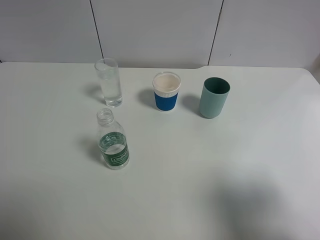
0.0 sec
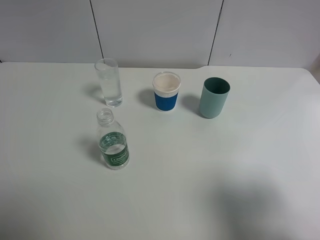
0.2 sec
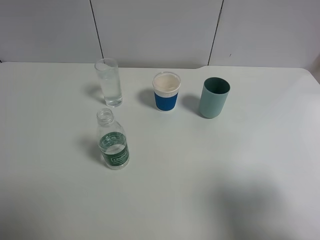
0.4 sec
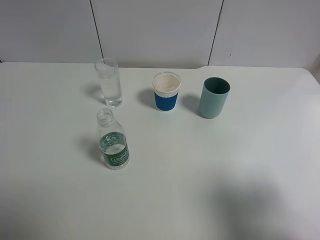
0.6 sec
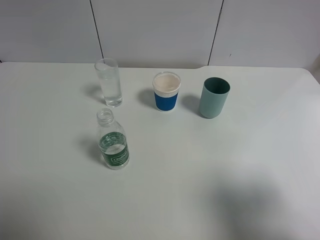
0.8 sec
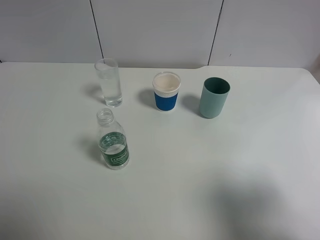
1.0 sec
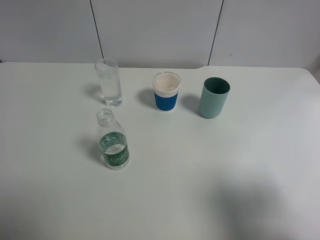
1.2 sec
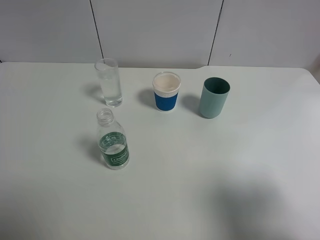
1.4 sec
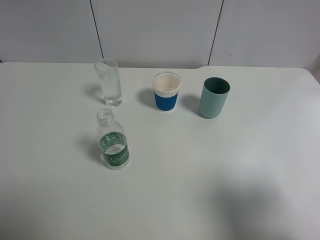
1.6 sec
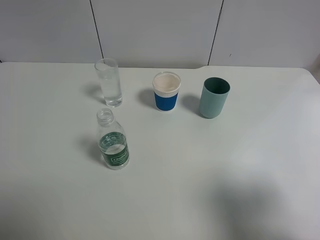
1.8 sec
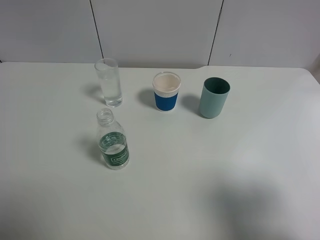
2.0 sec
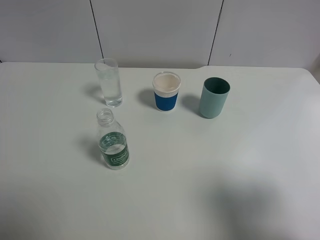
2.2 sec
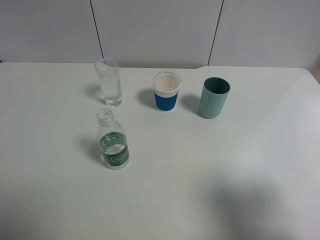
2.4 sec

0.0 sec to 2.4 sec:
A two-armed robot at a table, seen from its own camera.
Task of the whole recording: use a gripper to hold the bottle of the drink and pour it into a random cup.
0.0 sec to 2.4 sec: The two grippers keep their place.

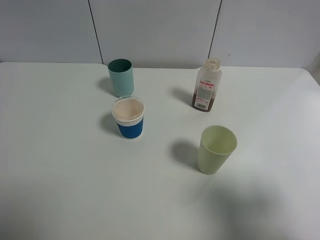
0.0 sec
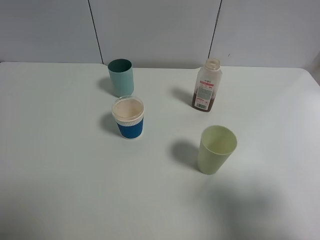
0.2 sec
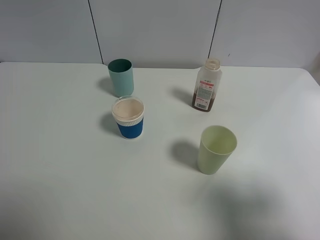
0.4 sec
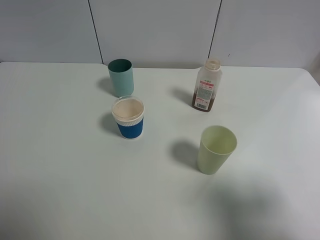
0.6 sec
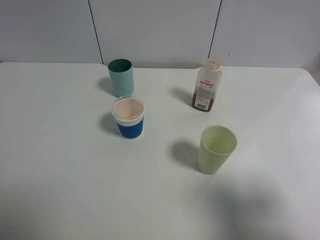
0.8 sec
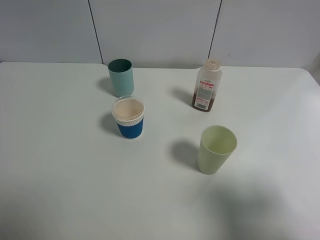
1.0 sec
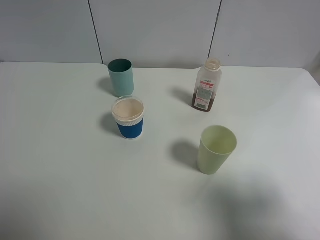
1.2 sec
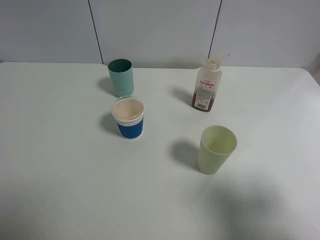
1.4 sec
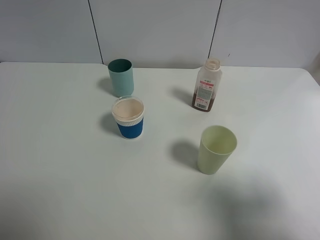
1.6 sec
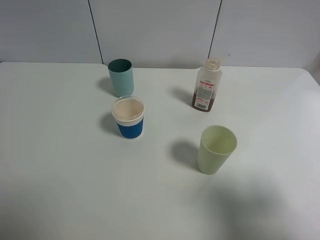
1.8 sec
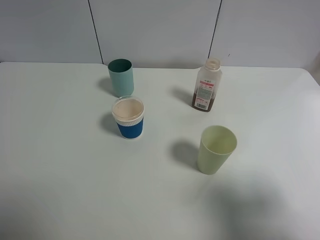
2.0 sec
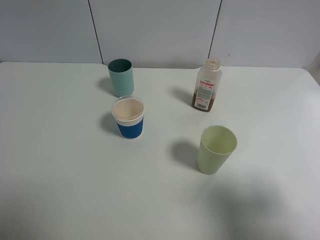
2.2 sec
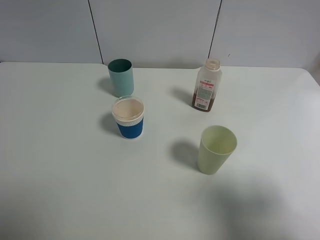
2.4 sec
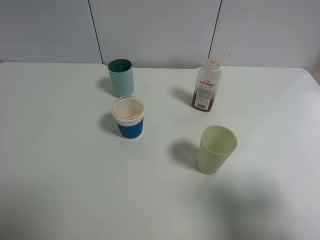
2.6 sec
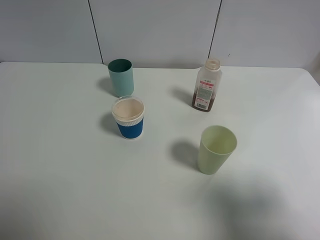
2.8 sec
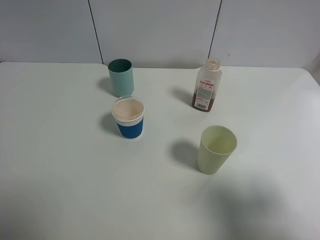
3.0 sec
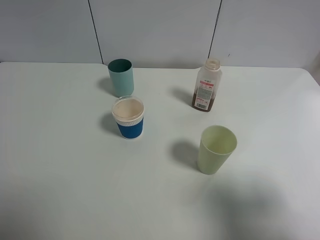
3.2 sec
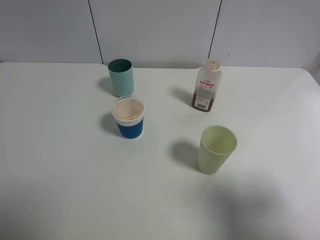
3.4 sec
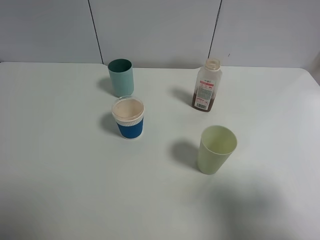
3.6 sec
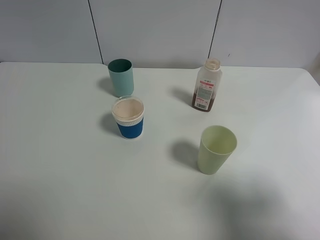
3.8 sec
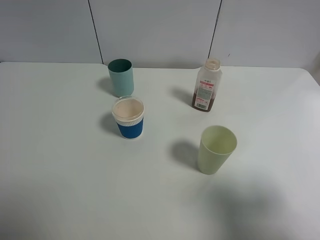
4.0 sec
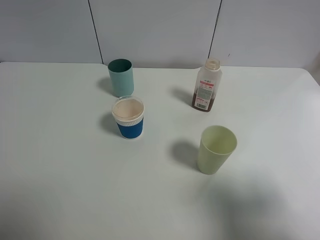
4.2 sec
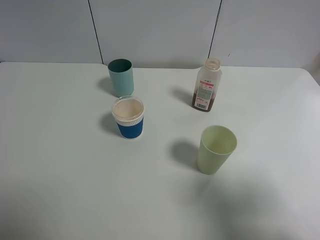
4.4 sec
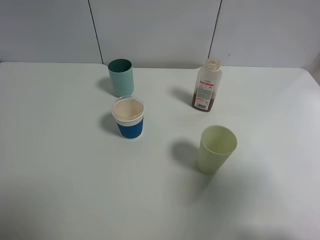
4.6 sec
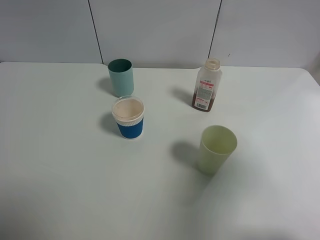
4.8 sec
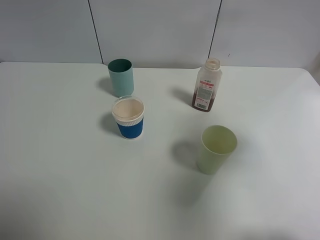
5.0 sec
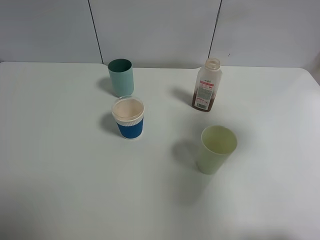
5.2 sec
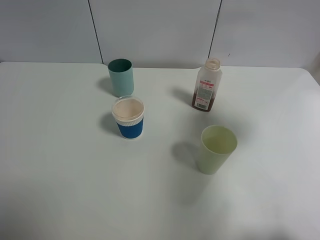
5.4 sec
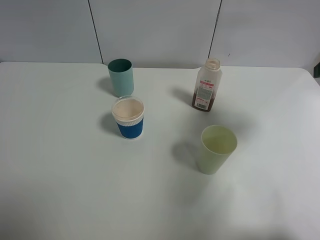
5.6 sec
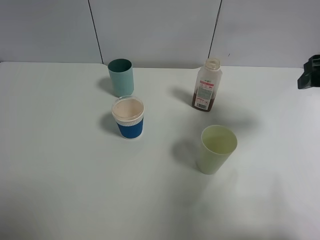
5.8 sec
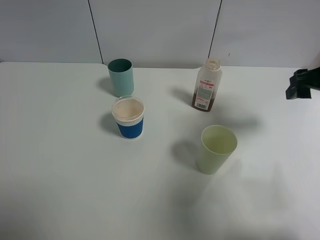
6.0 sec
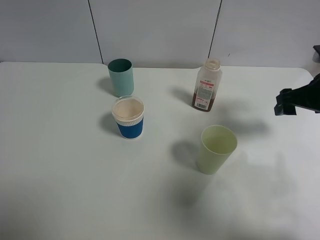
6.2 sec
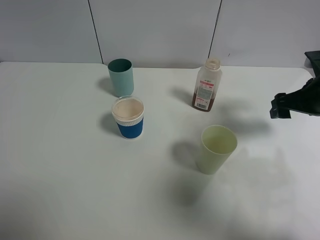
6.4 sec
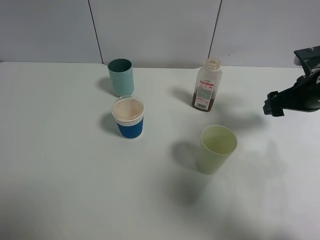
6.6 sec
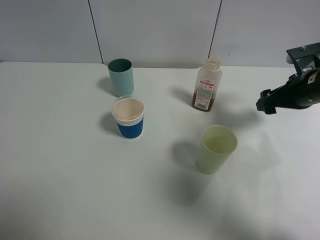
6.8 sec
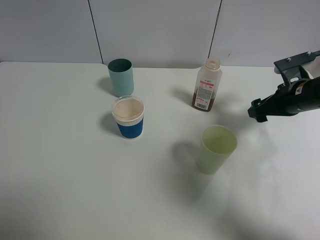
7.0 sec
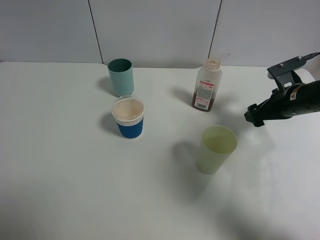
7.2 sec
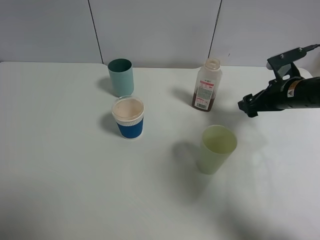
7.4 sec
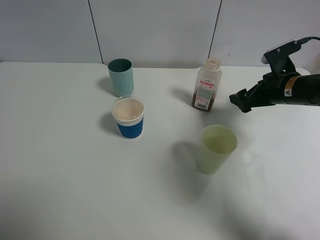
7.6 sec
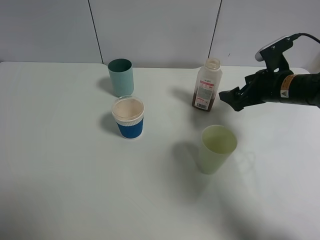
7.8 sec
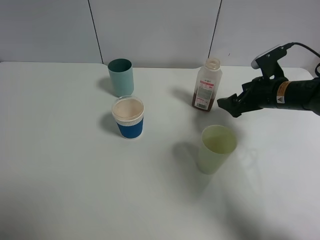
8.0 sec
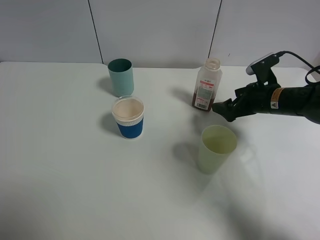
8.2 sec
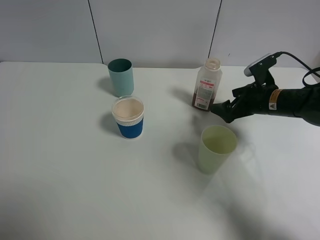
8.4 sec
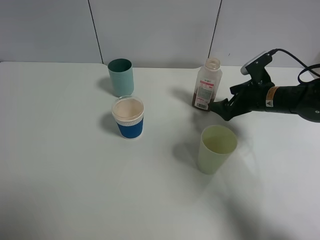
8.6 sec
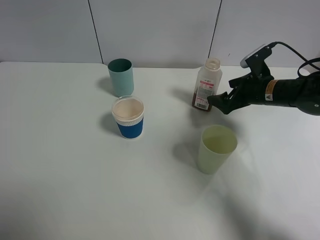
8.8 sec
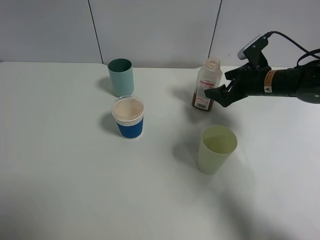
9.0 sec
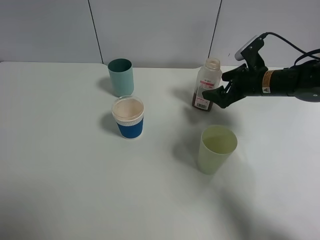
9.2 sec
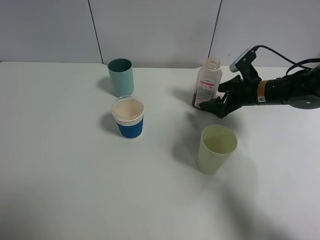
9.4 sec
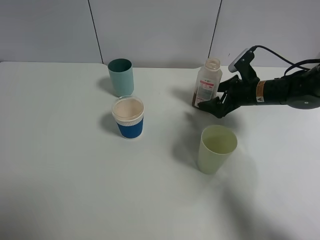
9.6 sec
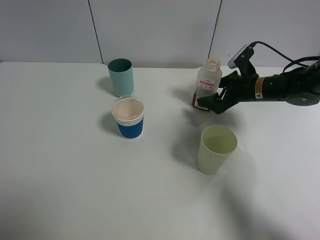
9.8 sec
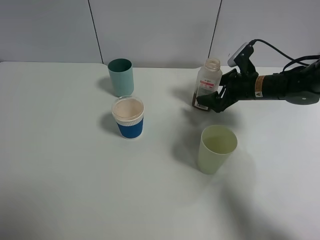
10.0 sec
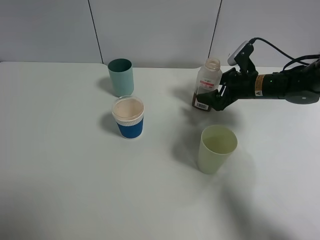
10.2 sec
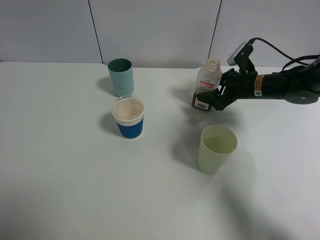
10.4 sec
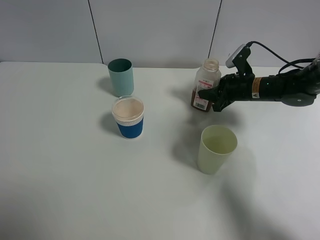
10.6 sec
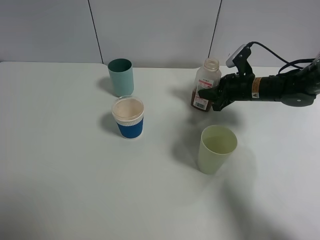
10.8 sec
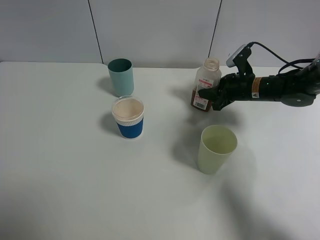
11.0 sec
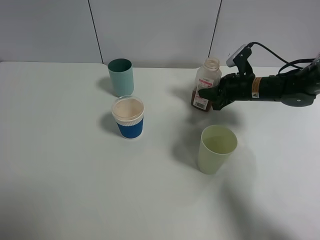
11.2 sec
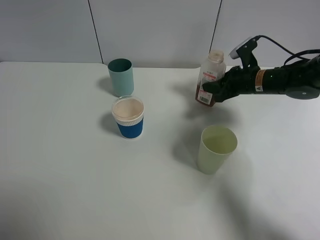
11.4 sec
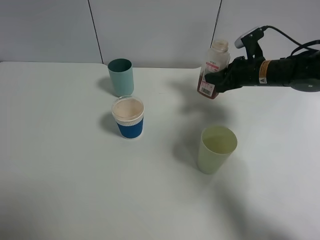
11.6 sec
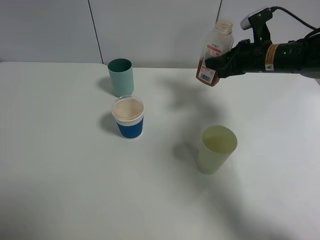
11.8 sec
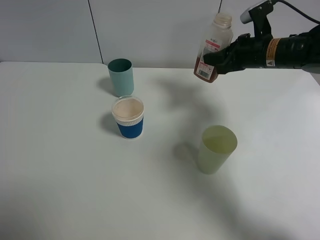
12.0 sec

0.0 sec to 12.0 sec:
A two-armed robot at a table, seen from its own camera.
Task of the whole recording: use a gripper to hold the bottle of the drink and pour it into a random cup.
Step, 0.0 sec to 10.8 sec: Grasp the cranberry juice bottle with the right gripper.
0.0 sec to 3.0 sec: Both grippers stay put.
4.4 sec to 6.0 sec: The right gripper heads forward, covering roughly 25 cm.
6.0 sec to 7.6 sec: The right gripper moves downward and forward, some 10 cm.
7.6 sec to 9.0 sec: The right gripper changes place by about 5 cm.
9.0 sec to 10.4 sec: The grippers stay close to where they were, moving slightly.
10.4 sec to 12.0 sec: The right gripper is displaced upward by some 10 cm, and closes its fingers.

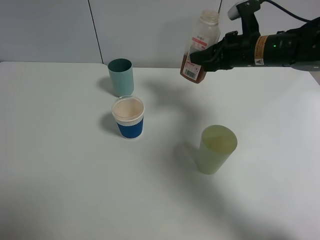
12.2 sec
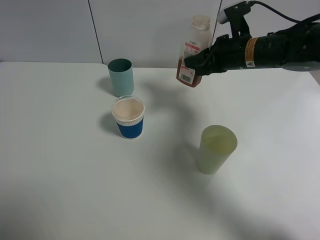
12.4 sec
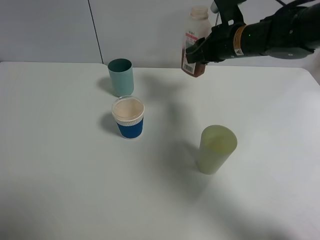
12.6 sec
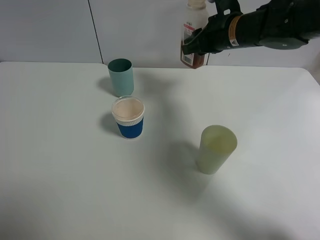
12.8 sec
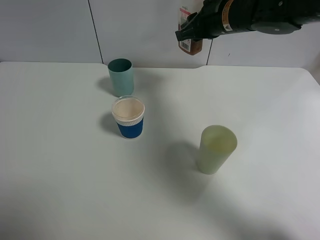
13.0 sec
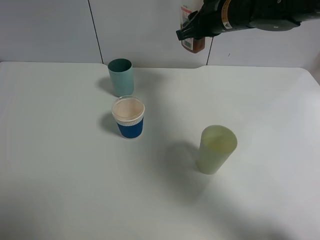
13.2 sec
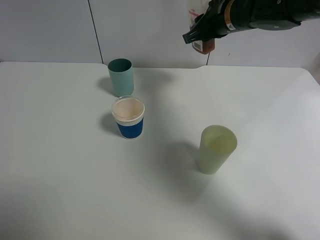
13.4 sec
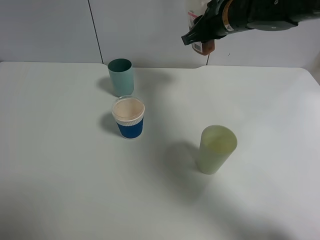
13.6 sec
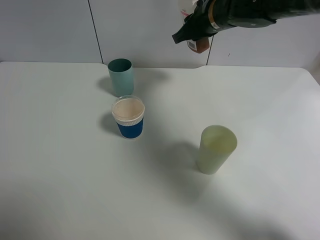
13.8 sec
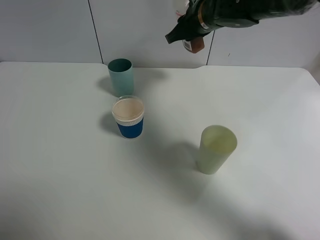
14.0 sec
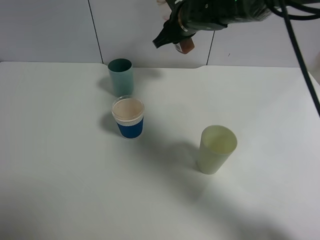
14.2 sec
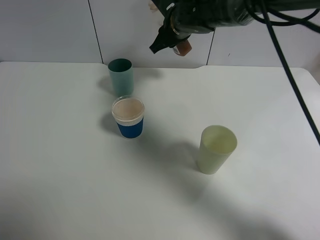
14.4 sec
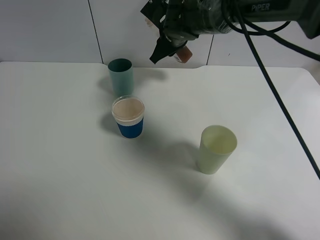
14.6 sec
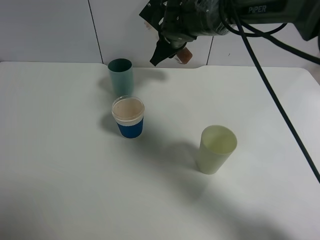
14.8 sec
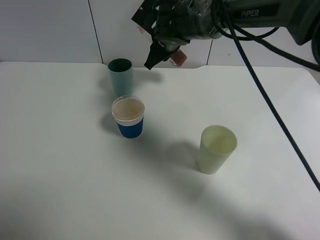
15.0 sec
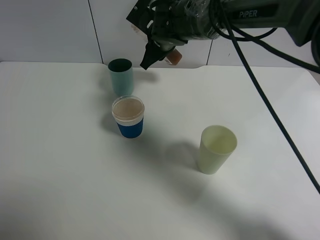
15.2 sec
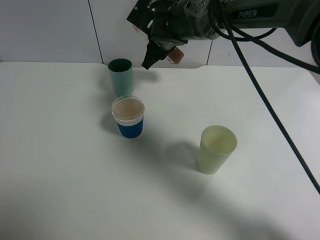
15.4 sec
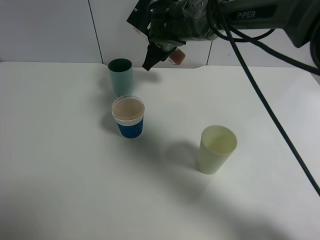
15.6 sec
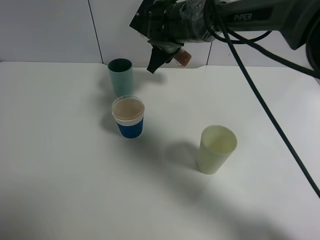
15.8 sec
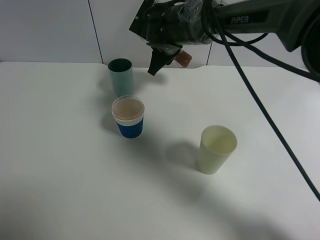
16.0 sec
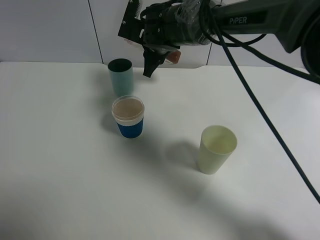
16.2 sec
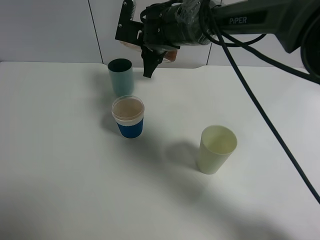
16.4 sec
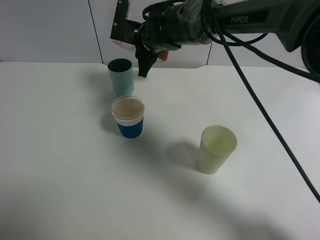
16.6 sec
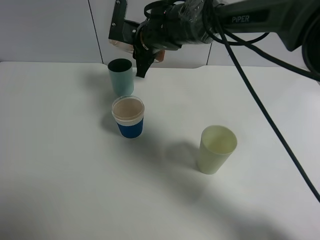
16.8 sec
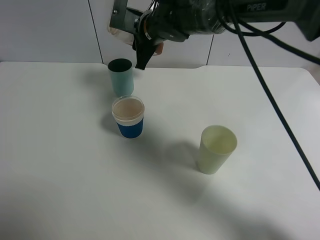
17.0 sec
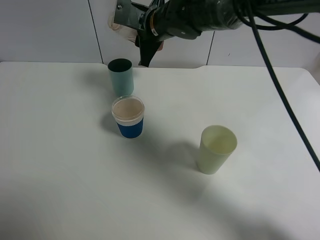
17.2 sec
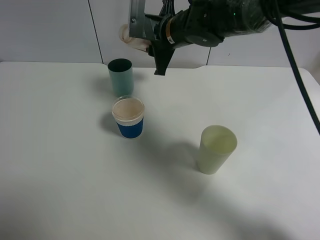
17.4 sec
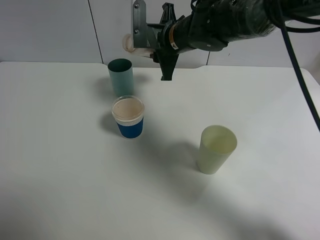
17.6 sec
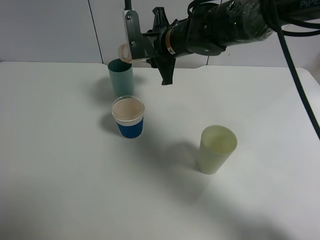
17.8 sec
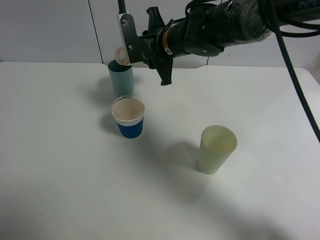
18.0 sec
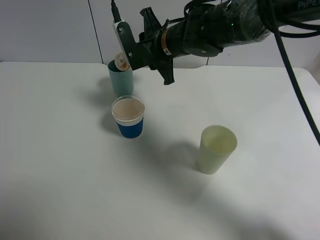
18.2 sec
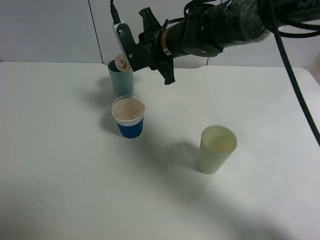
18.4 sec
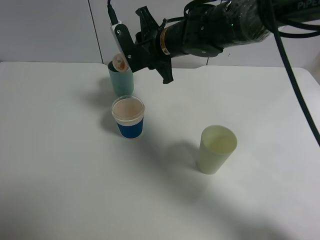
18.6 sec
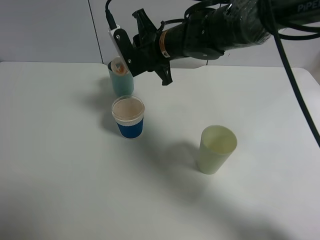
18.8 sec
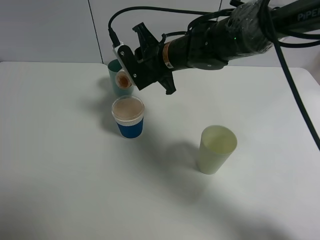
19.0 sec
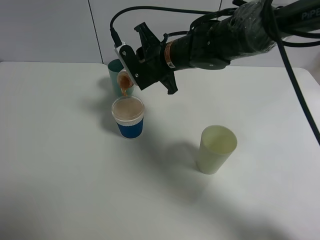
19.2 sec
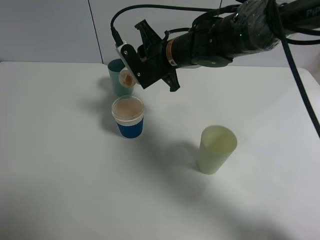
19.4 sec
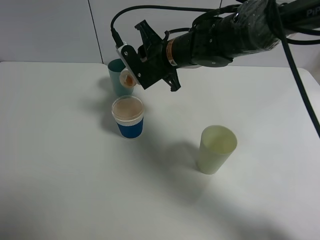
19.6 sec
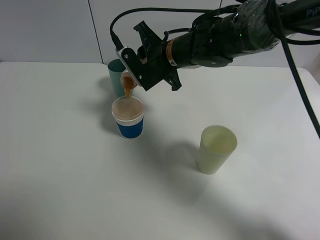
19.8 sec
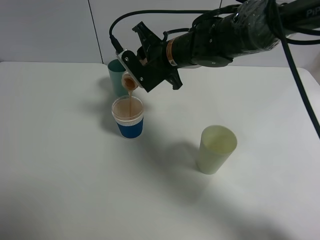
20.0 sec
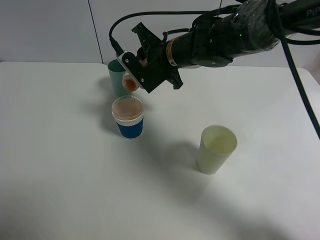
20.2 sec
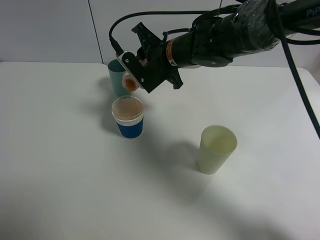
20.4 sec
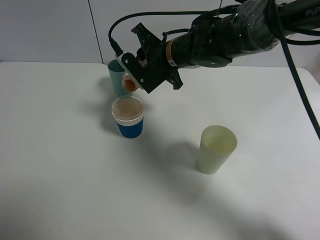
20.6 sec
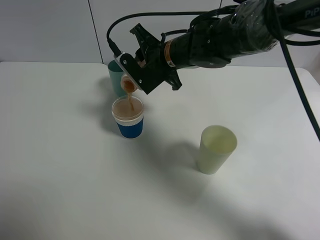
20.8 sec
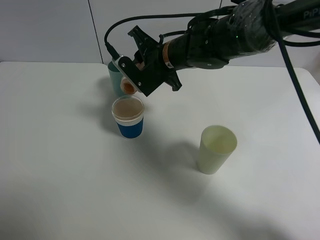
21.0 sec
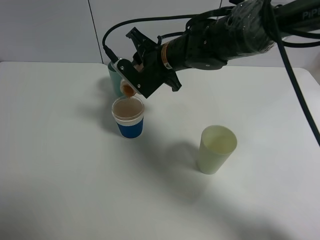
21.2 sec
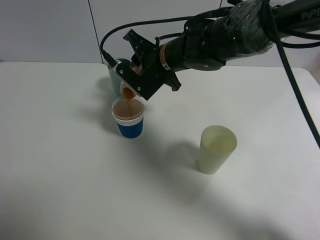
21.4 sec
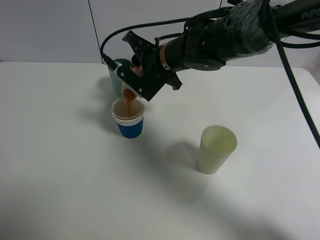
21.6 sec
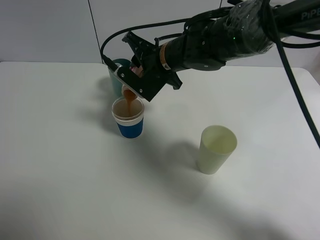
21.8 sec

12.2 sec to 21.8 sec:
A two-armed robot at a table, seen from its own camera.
Task of the whole recording: use a gripper to hold the bottle of the drink and pour it into a random cup.
12.2 sec to 13.8 sec: The right gripper is displaced to the left and upward by roughly 10 cm.
13.8 sec to 15.4 sec: The right gripper goes approximately 10 cm to the left and downward.
17.0 sec to 18.6 sec: The right gripper moves approximately 5 cm.
18.6 sec to 20.2 sec: The grippers make only small movements.
20.2 sec to 21.8 sec: There are only small adjustments of the grippers.
